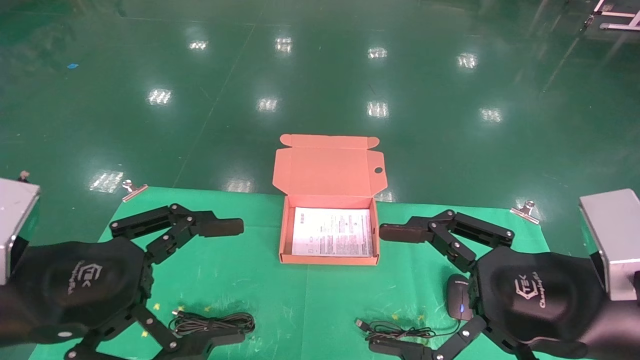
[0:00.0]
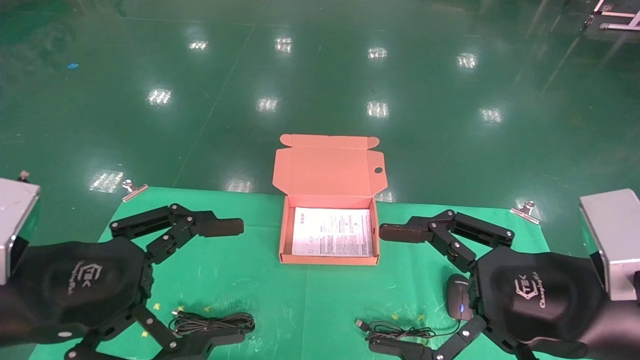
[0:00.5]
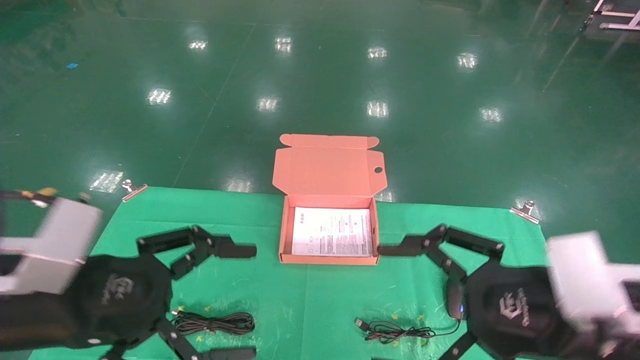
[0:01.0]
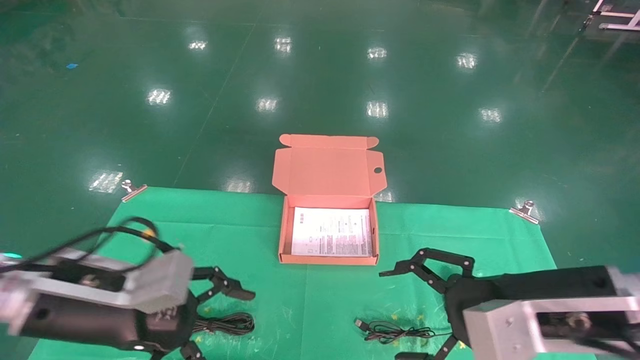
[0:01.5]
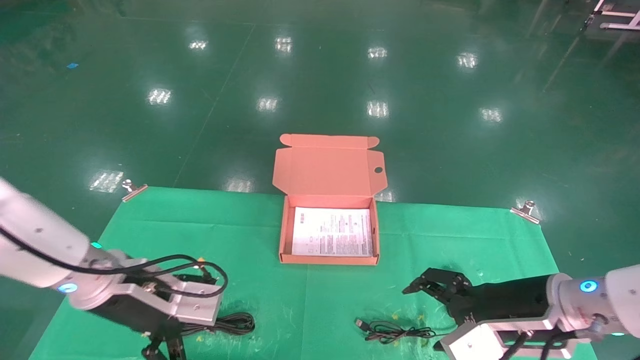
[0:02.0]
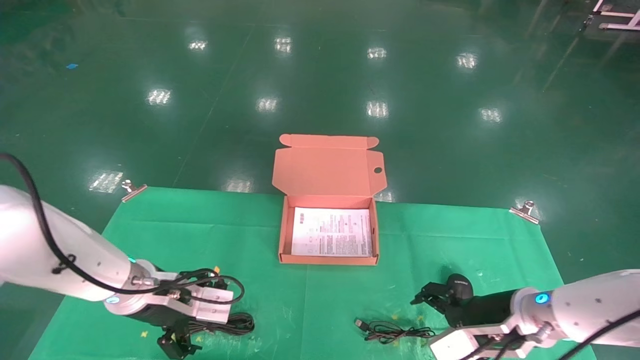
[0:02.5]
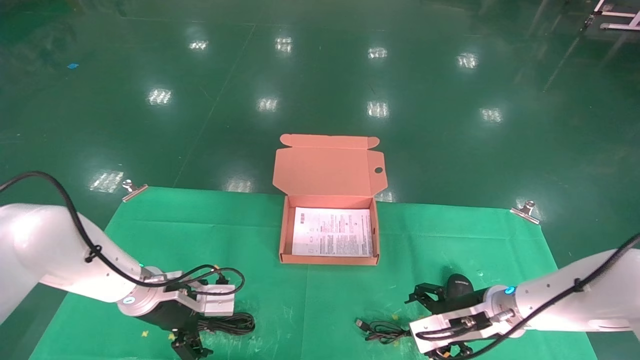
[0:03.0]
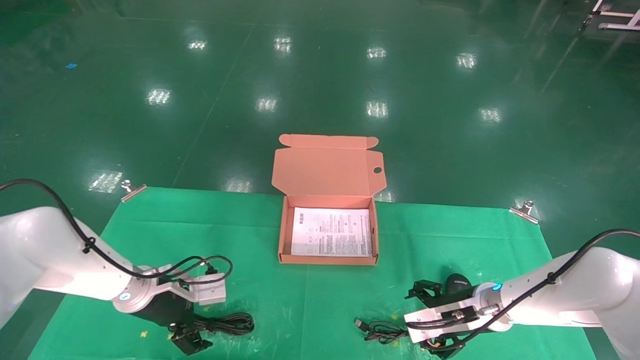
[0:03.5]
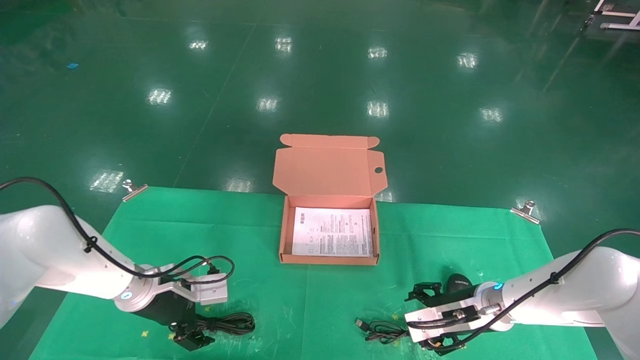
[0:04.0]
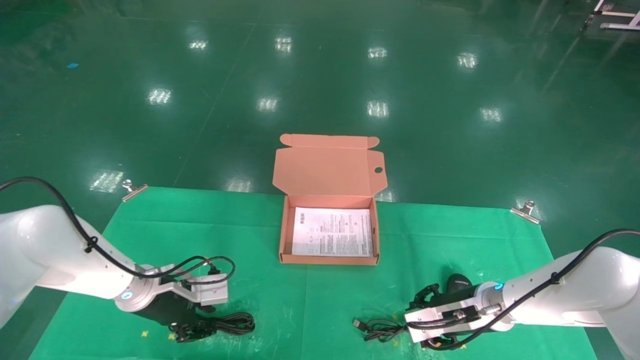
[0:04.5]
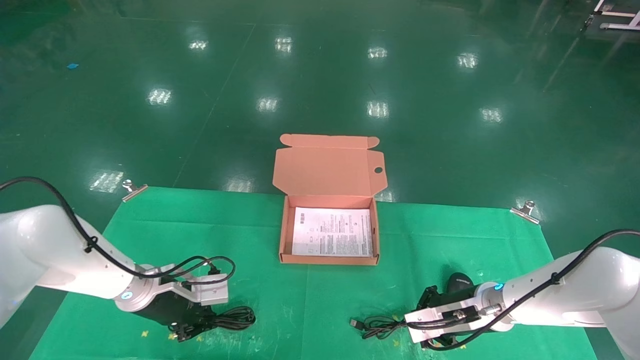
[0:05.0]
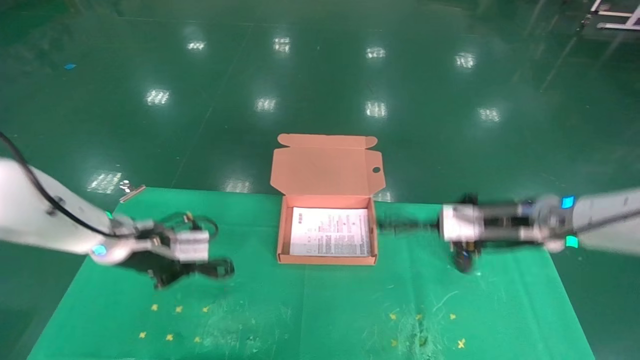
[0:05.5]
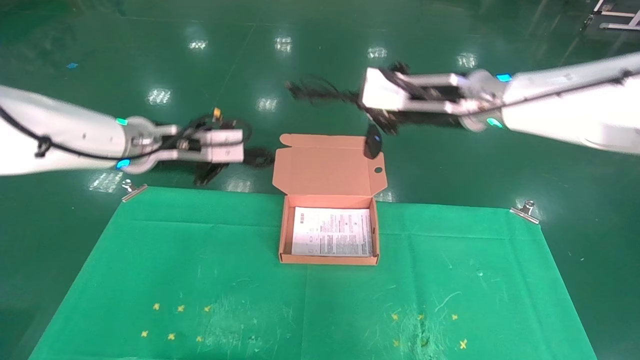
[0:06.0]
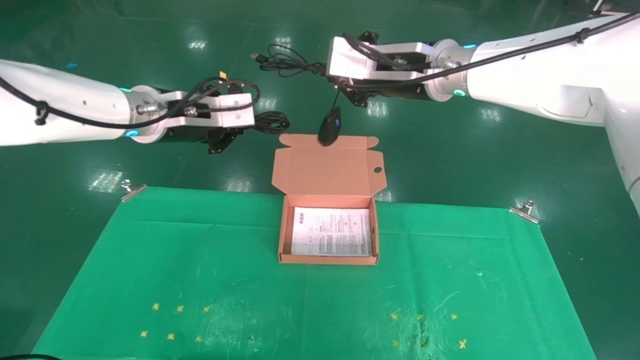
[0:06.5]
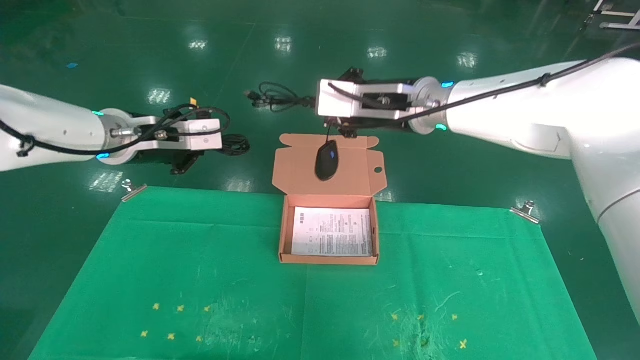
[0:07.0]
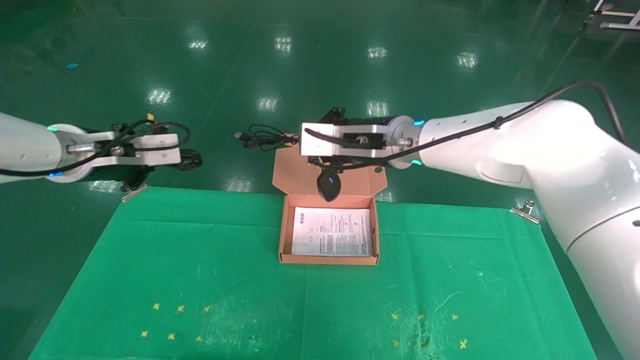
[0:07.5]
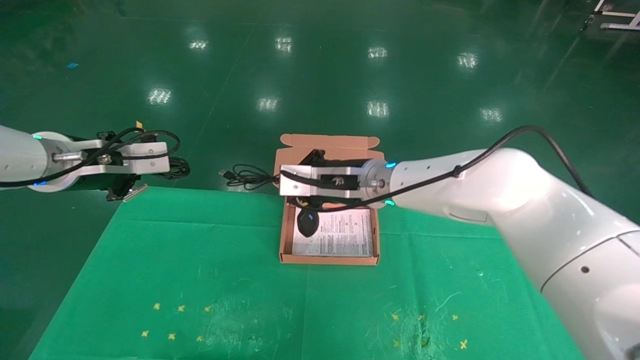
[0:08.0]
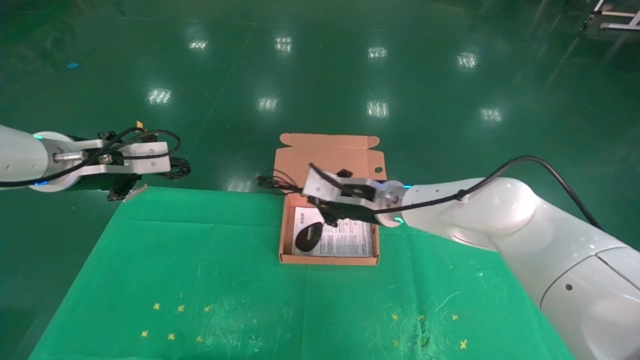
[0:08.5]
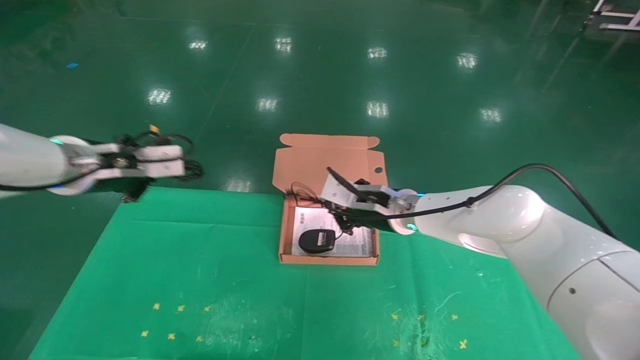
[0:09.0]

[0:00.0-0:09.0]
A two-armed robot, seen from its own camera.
Task of the whole recording: grasp data cable left put into box grasp mouse right put into box.
Step, 0:01.0 to 0:05.0: Grab and pick up both the mouse and power cord from the accessory packaging area at the same time.
0:00.0 to 0:02.0: Both grippers travel together forward and downward, roughly 15 cm.
0:02.0 to 0:04.5: The grippers both shift forward and downward by some 15 cm. The left gripper closes up. Meanwhile the right gripper closes its fingers.
0:04.5 to 0:07.0: The left gripper heads upward, covering roughly 25 cm, and closes; the right gripper is displaced upward and to the left by roughly 35 cm, and closes its fingers.
0:07.0 to 0:09.0: The right gripper moves downward, approximately 15 cm.

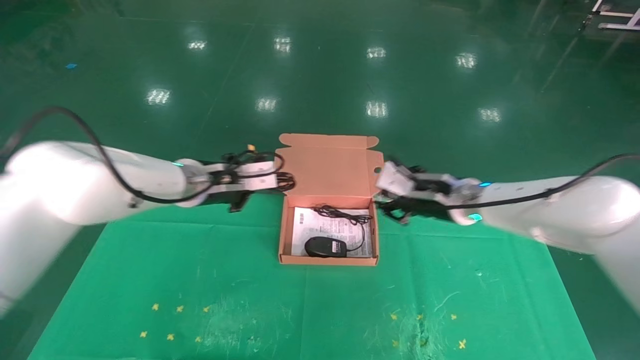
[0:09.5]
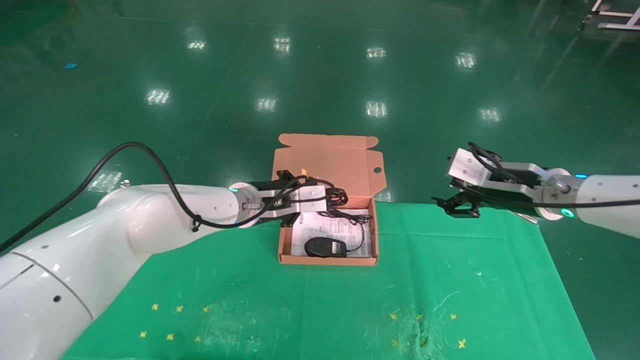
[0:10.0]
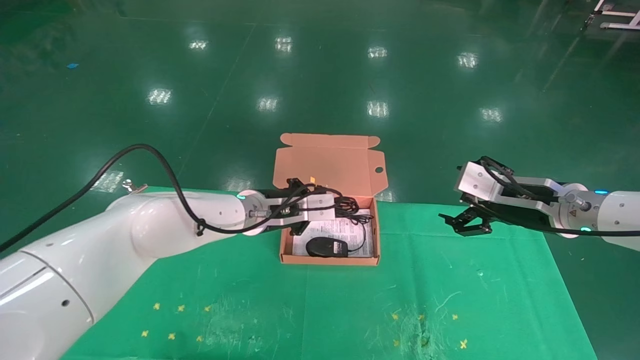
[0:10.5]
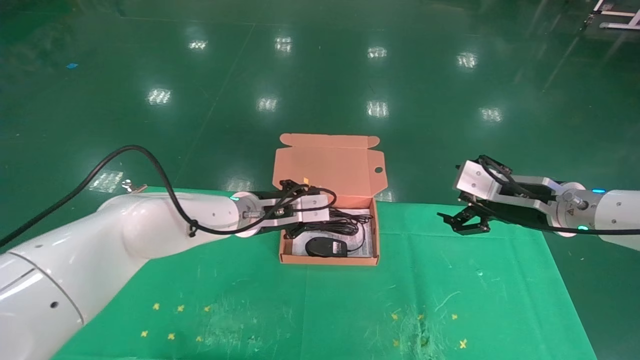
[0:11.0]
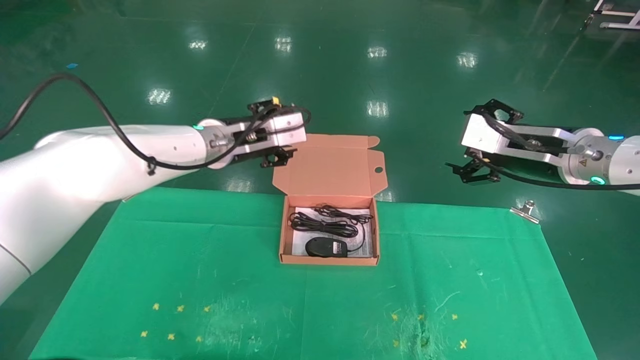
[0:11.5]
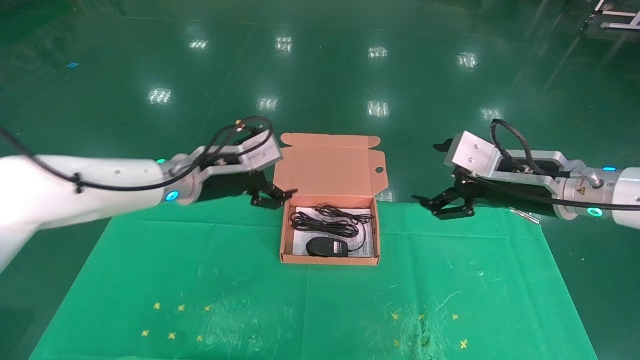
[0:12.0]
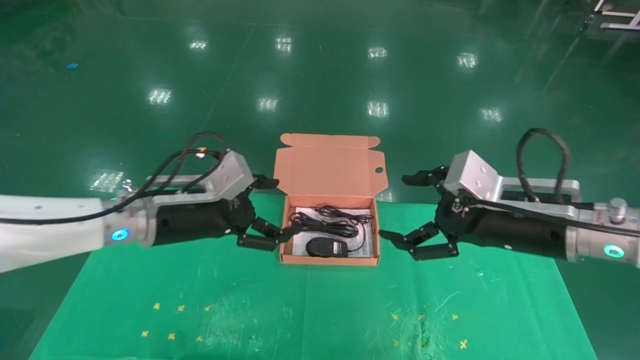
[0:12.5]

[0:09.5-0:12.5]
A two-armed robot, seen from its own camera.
Task of the whole recording: grasp data cable left put into box grasp mouse right put into box.
0:09.5 to 0:11.0: The left gripper travels to the right by approximately 5 cm. Meanwhile the right gripper goes roughly 10 cm to the right and backward, and opens up.
0:11.0 to 0:12.5: The left gripper travels to the left and backward by roughly 15 cm, and opens its fingers. The right gripper goes about 5 cm backward.
